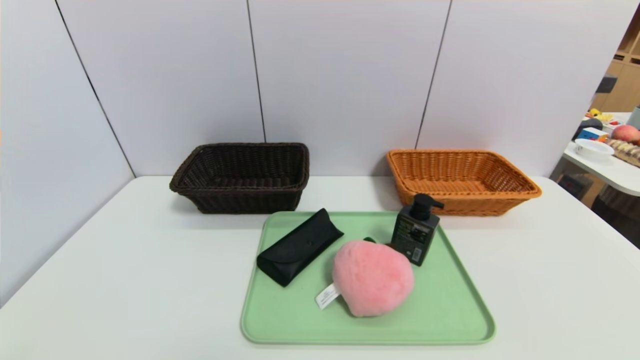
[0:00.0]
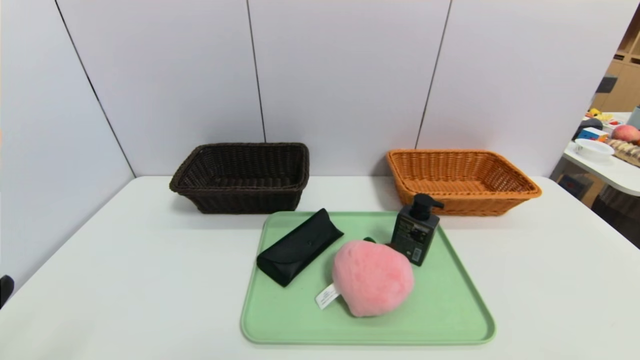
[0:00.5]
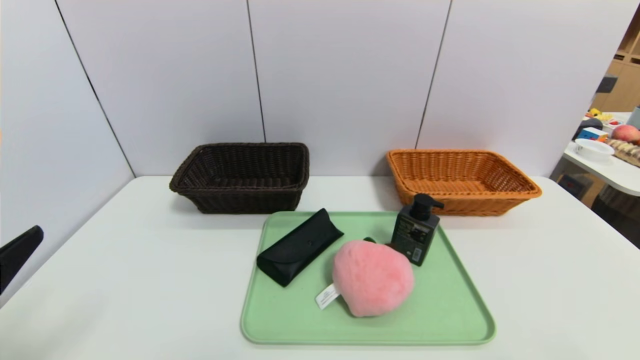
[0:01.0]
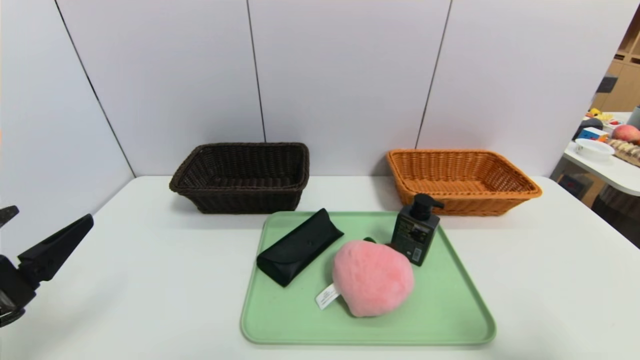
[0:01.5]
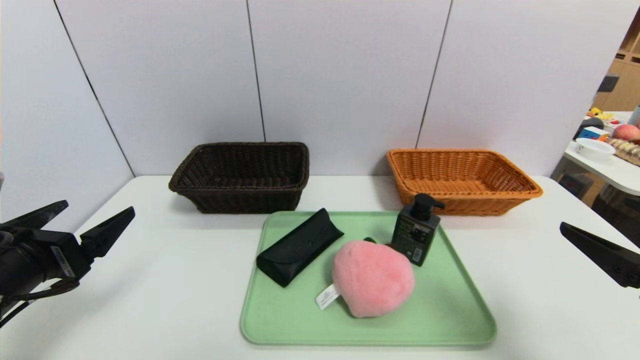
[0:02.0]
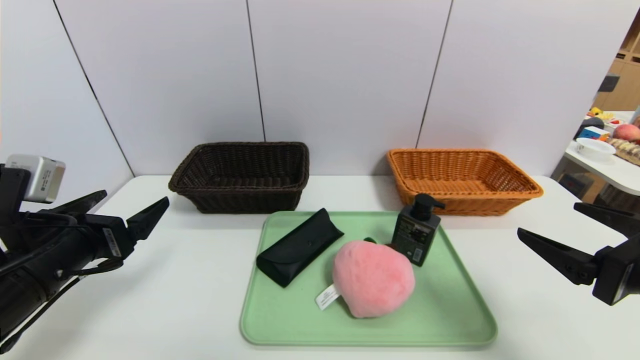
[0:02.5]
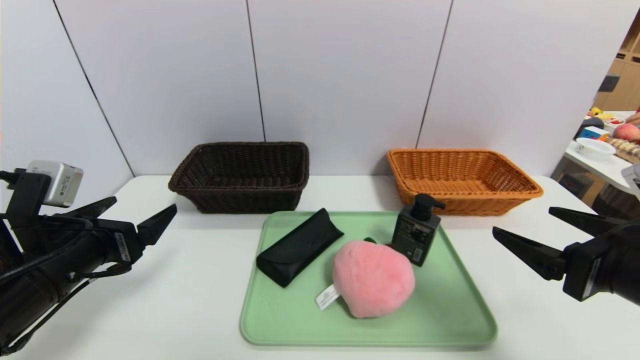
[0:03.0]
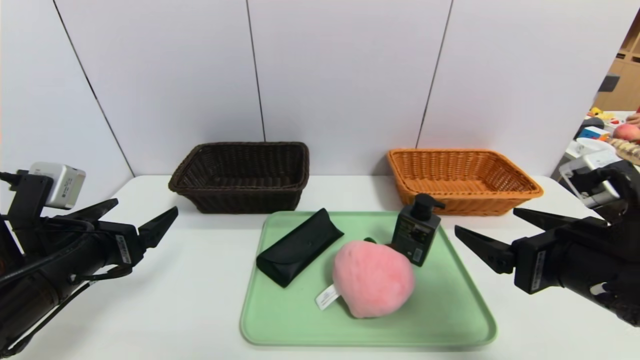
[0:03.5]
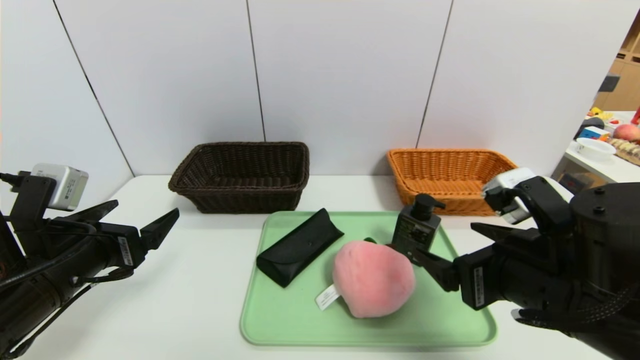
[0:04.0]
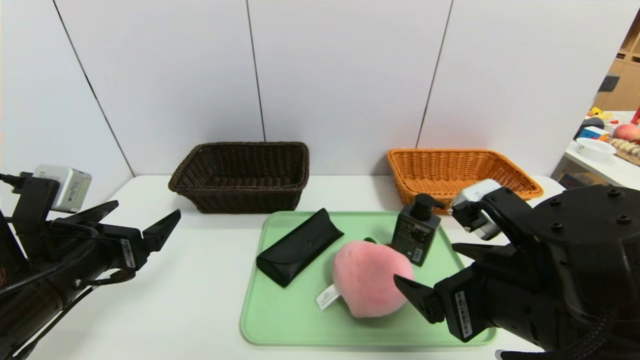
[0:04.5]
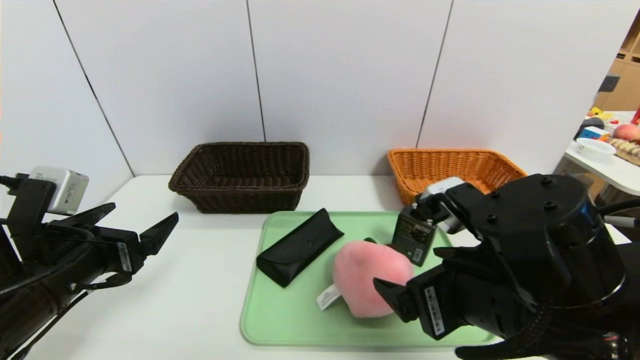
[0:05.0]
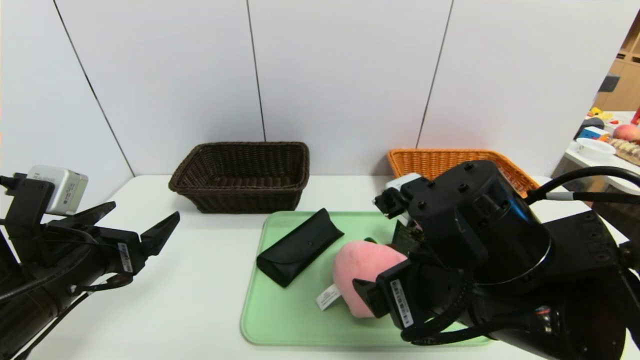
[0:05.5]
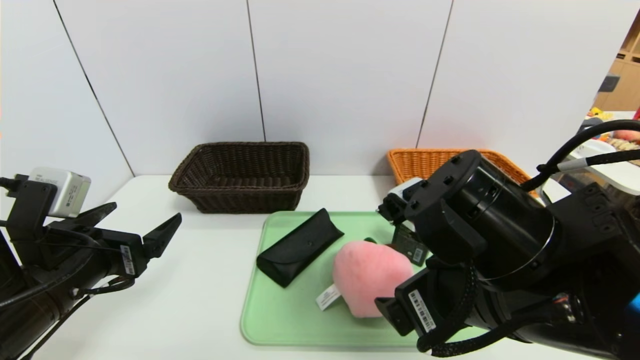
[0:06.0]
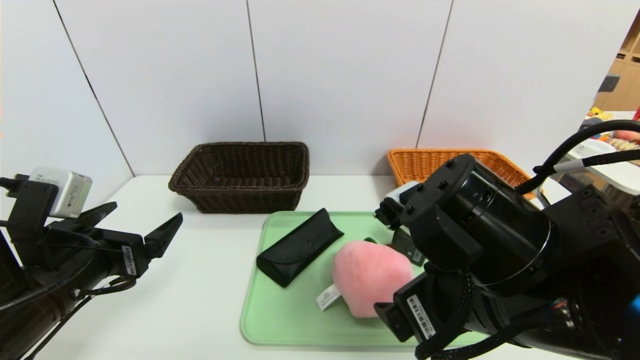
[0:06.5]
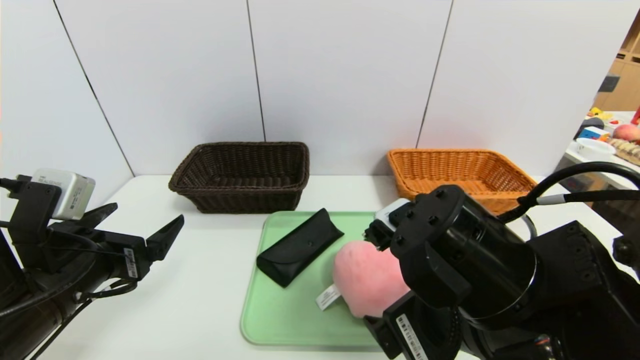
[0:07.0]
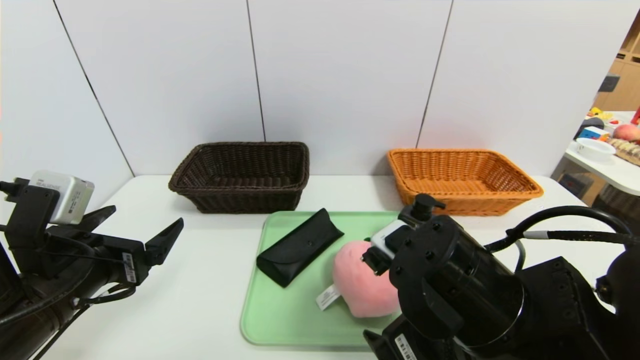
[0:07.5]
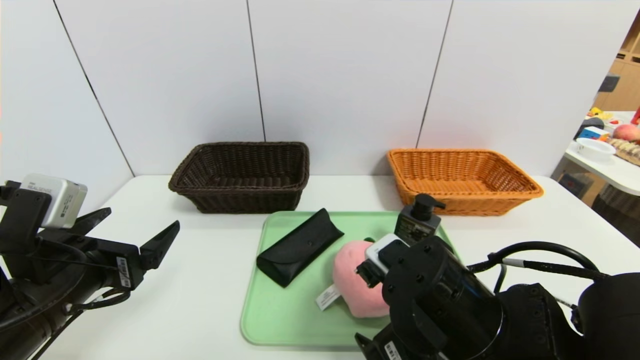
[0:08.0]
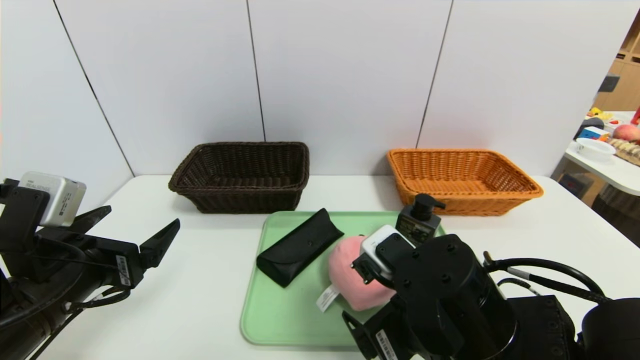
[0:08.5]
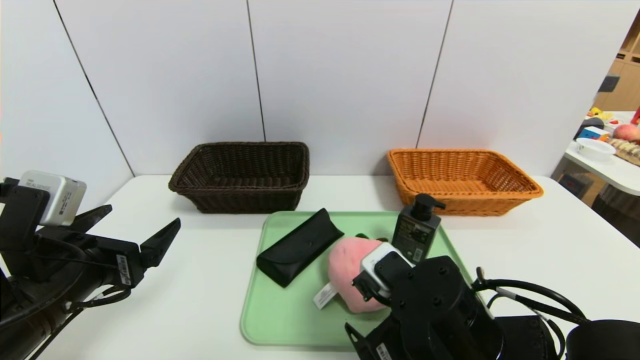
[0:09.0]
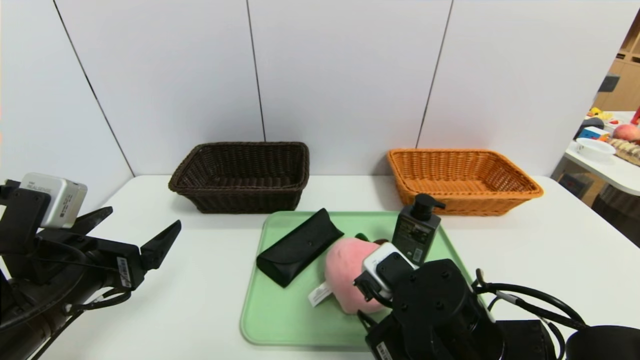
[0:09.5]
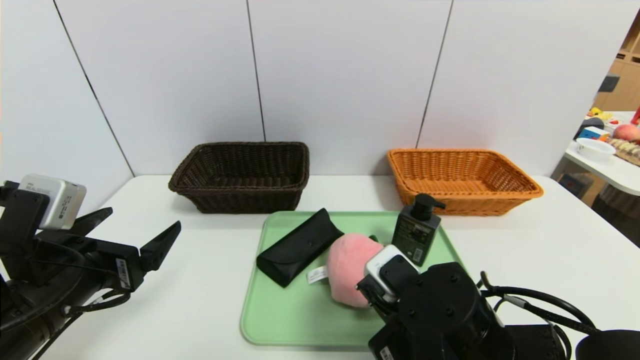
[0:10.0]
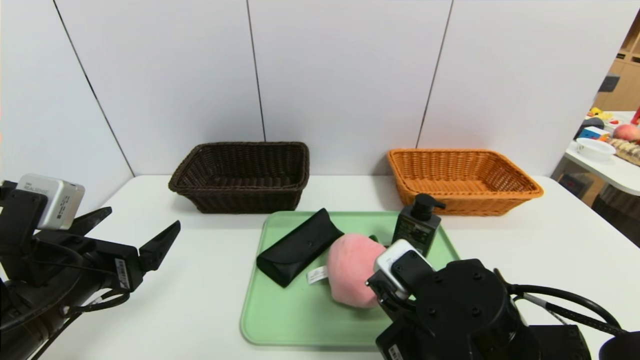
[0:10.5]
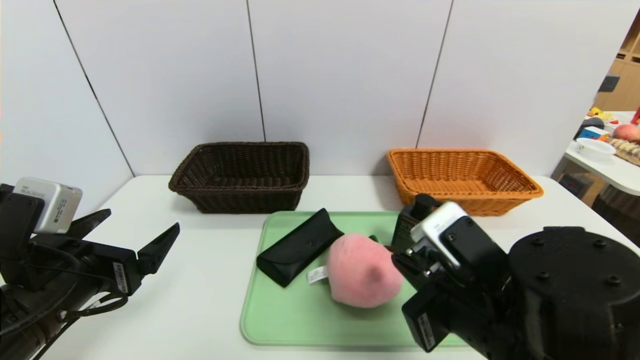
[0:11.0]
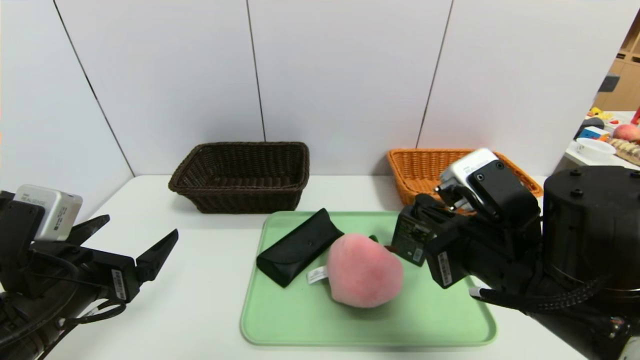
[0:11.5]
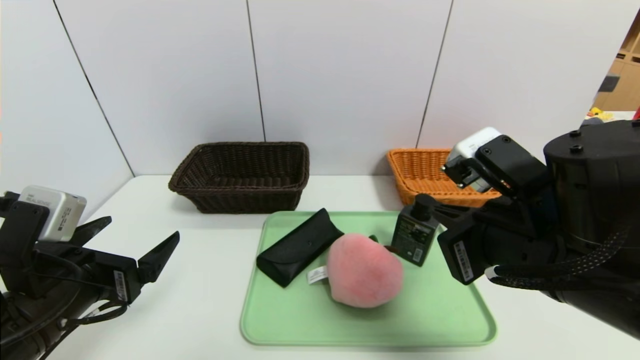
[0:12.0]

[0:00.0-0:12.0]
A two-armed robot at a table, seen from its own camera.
Task of the whole recording: place the food in the right basket with the right gripper, and place the non food items in the left basket with the left gripper.
0:00.0 to 0:02.0: The left gripper moves forward, about 15 cm. The right gripper goes roughly 15 cm forward and upward.
0:02.0 to 0:04.0: The right gripper shifts approximately 15 cm to the left. The left gripper shifts by roughly 5 cm.
0:04.0 to 0:06.0: The right gripper moves to the left, roughly 5 cm.
0:06.0 to 0:08.0: The right gripper travels downward by approximately 5 cm.
0:08.0 to 0:10.0: The right gripper closes up.
0:10.0 to 0:12.0: The right gripper goes some 10 cm upward and to the right.

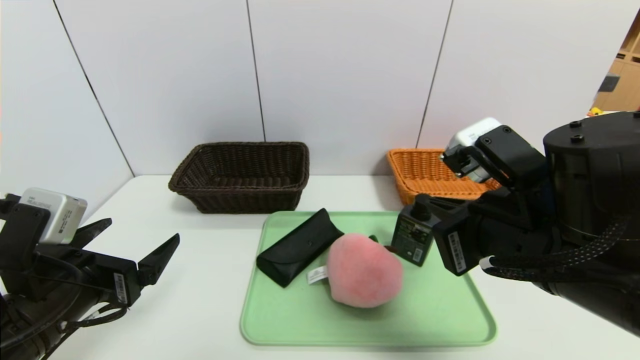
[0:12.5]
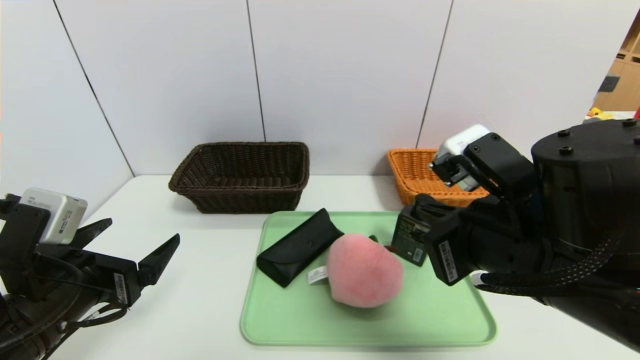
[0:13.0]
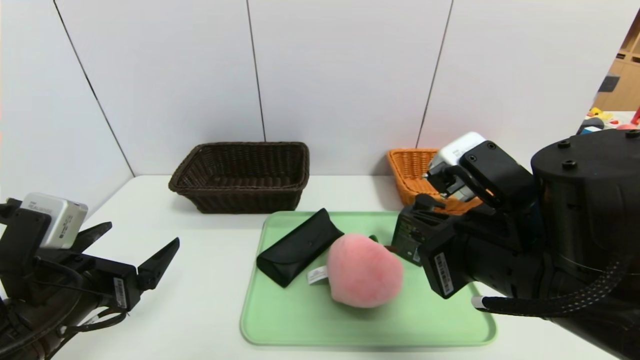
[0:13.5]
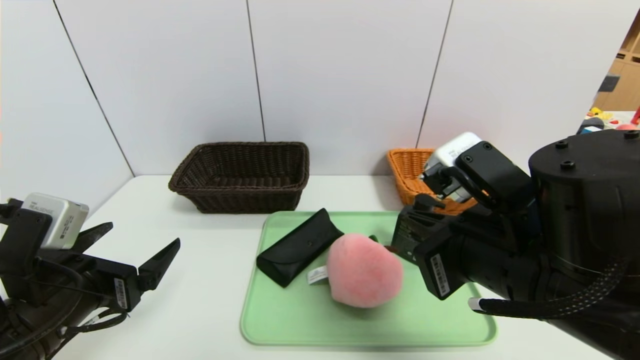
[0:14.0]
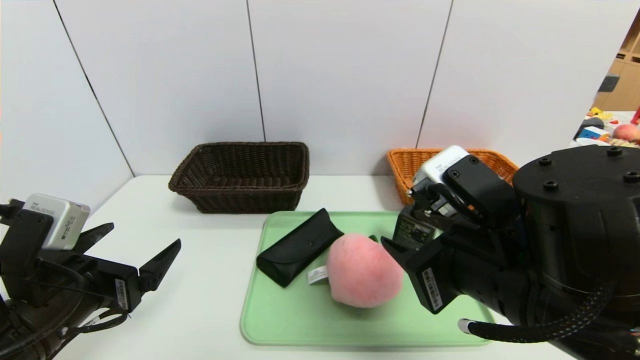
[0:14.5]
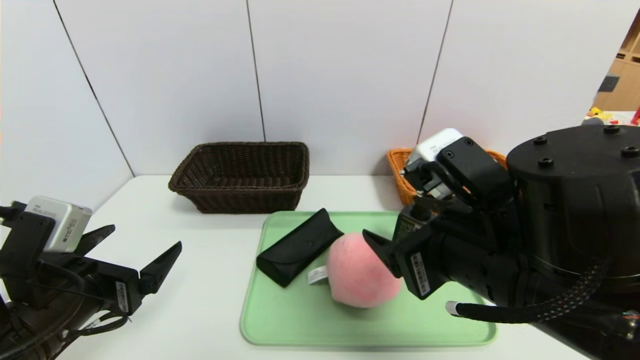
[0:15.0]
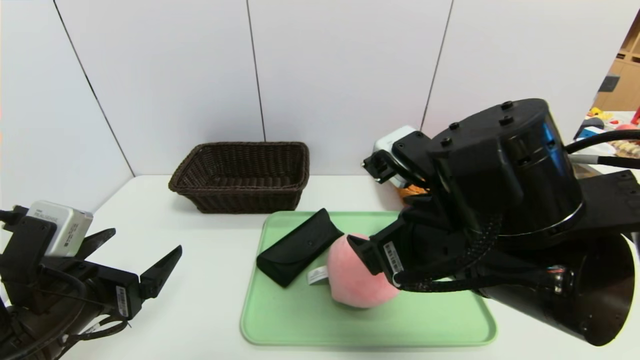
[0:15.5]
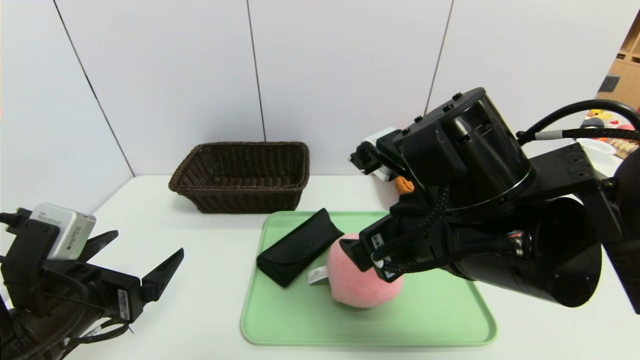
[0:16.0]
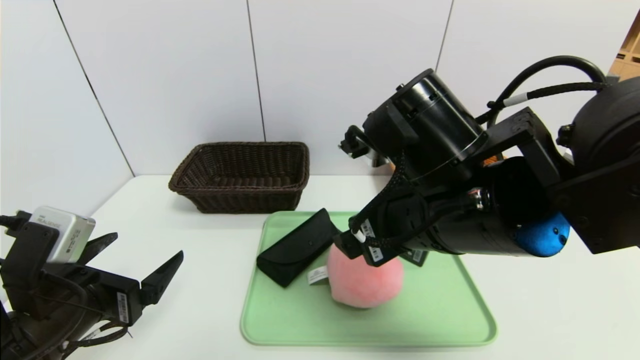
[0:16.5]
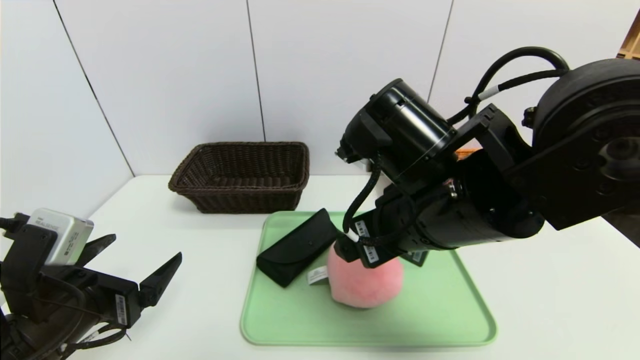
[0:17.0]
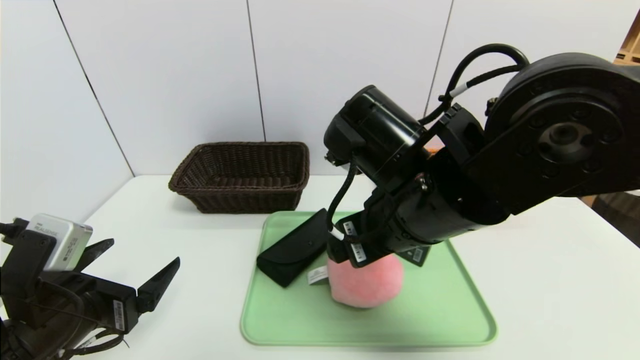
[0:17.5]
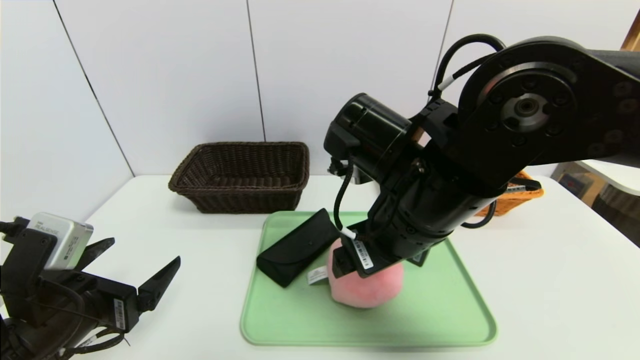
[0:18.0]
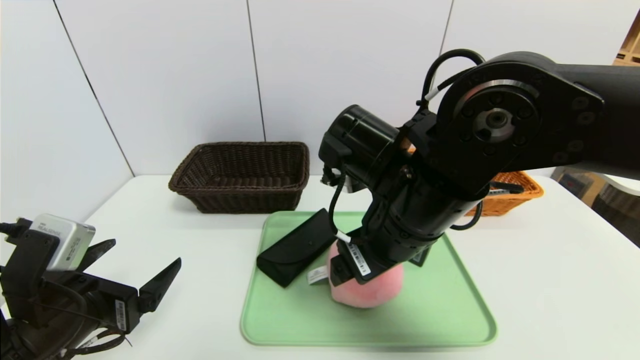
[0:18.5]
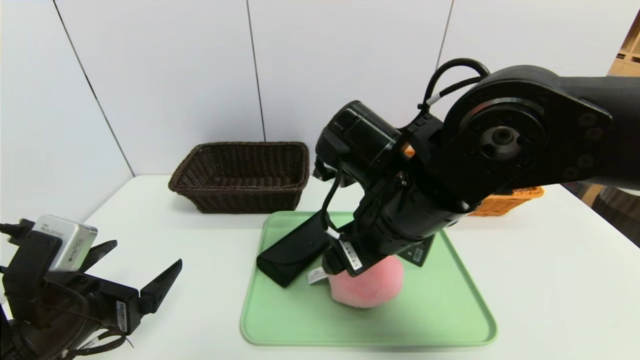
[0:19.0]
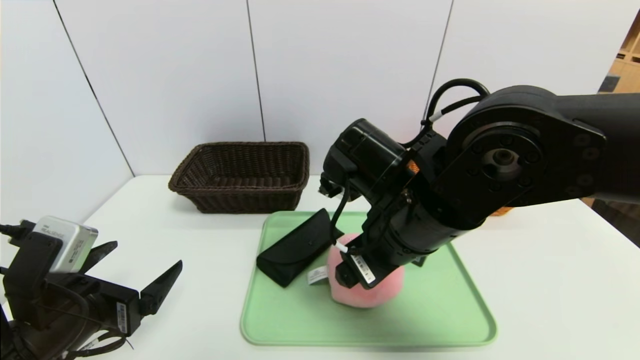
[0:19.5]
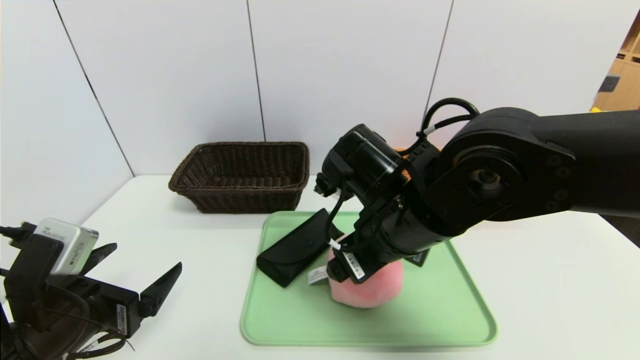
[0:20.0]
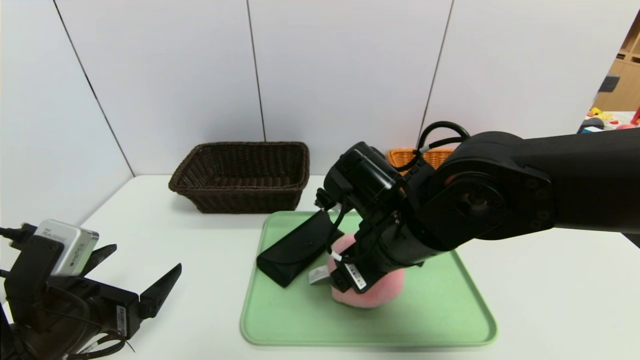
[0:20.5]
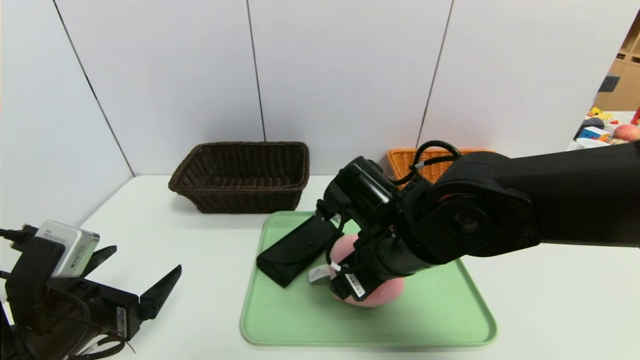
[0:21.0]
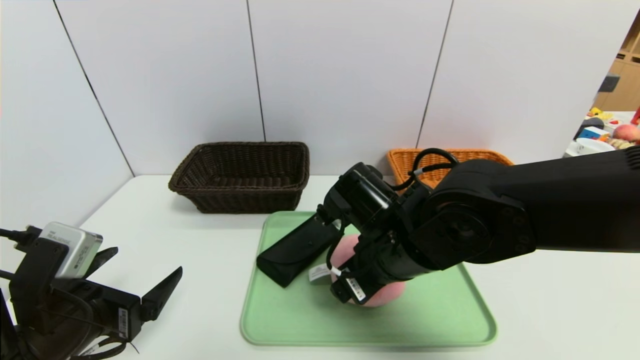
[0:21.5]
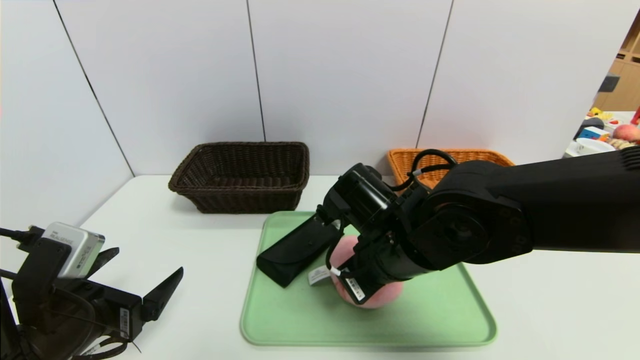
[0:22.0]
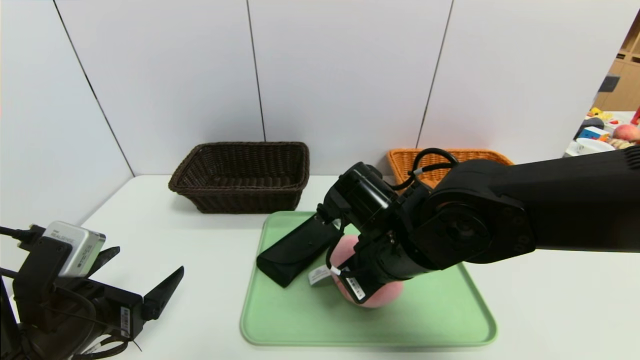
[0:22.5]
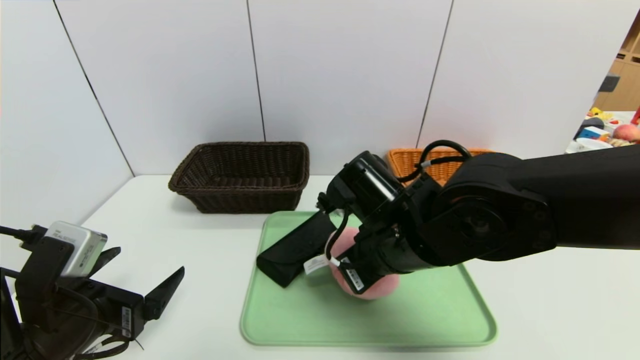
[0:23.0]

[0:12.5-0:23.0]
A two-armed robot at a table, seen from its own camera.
Task of the whole recording: place the food in the right basket with the right gripper, and place the non food items in the left basket with the left gripper.
0:12.5 to 0:14.5: The right gripper opens its fingers.
0:14.5 to 0:16.5: The right gripper moves about 10 cm, and opens.
0:19.0 to 0:21.0: The right gripper travels downward by some 5 cm.
0:21.0 to 0:23.0: The right gripper closes its fingers.
